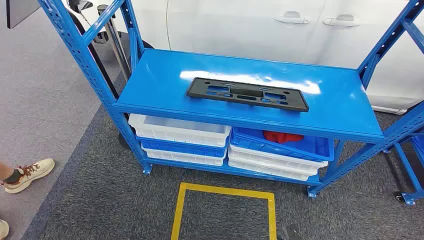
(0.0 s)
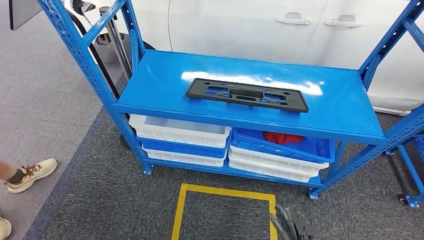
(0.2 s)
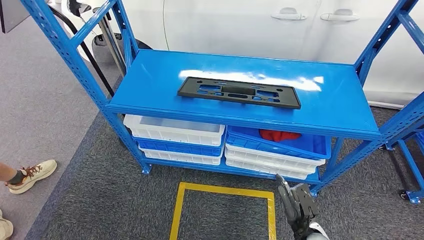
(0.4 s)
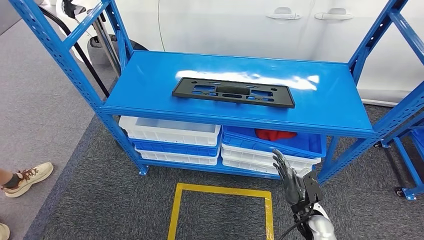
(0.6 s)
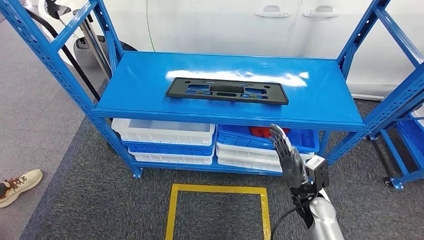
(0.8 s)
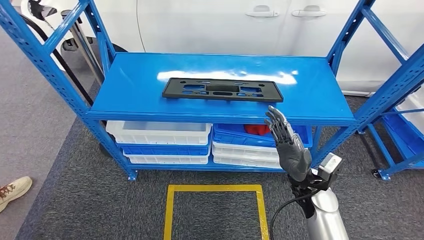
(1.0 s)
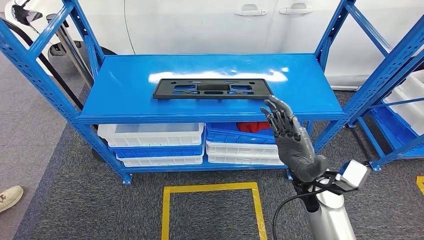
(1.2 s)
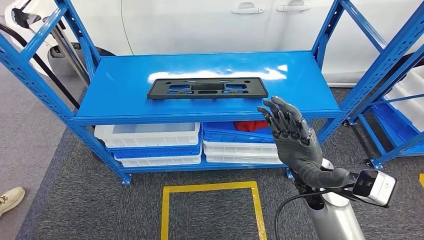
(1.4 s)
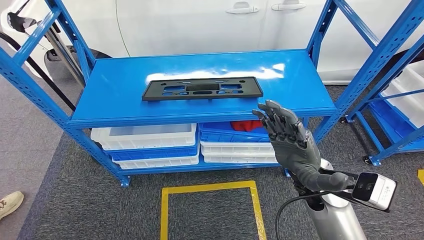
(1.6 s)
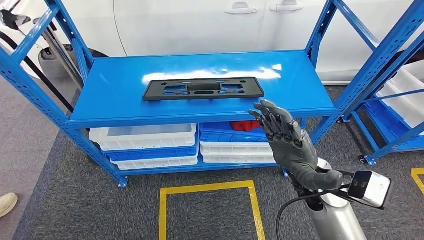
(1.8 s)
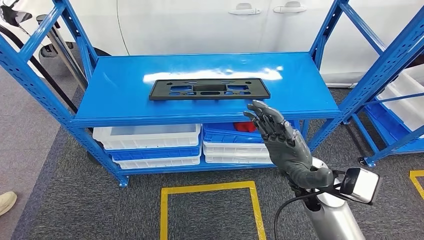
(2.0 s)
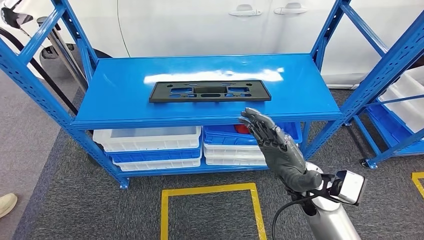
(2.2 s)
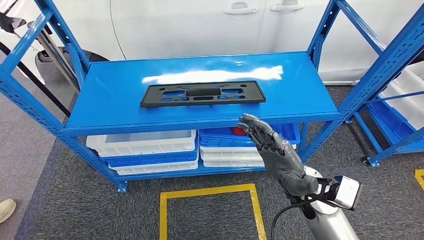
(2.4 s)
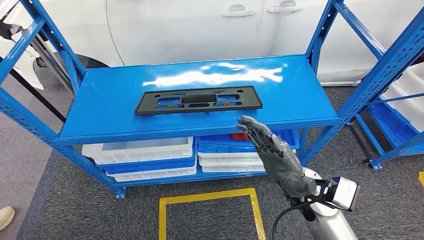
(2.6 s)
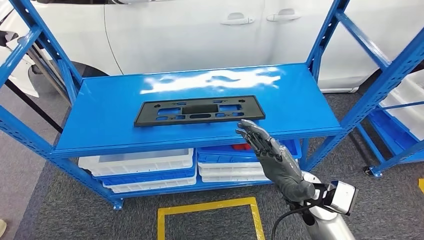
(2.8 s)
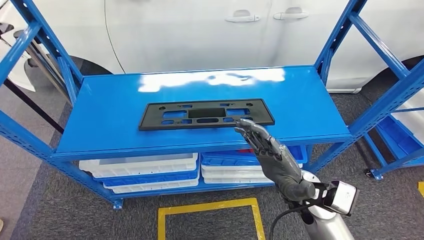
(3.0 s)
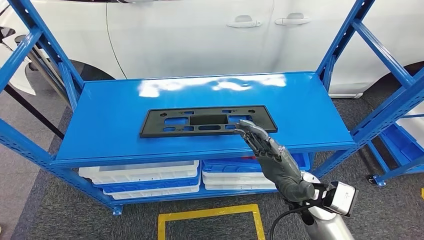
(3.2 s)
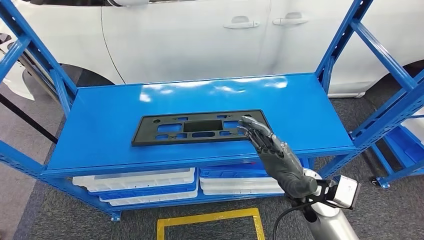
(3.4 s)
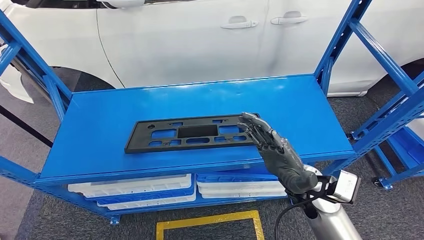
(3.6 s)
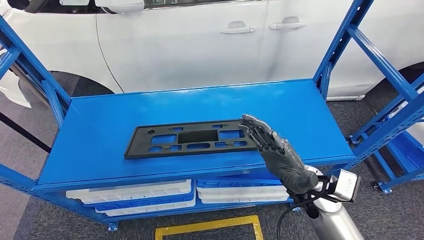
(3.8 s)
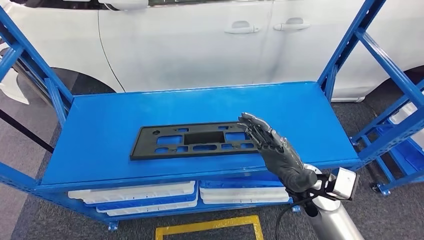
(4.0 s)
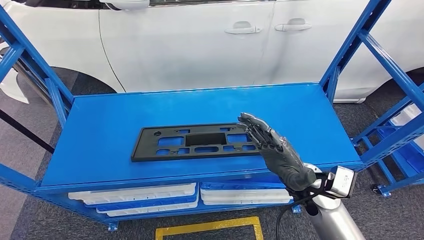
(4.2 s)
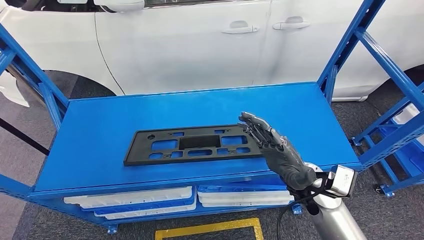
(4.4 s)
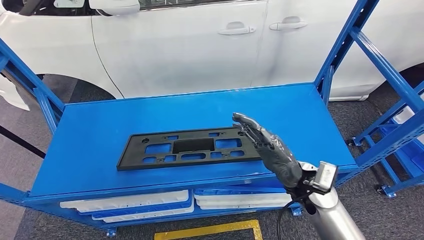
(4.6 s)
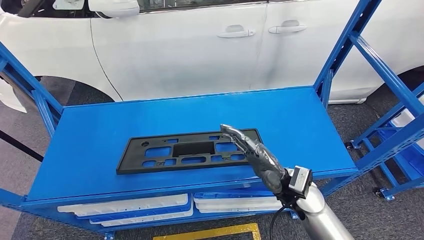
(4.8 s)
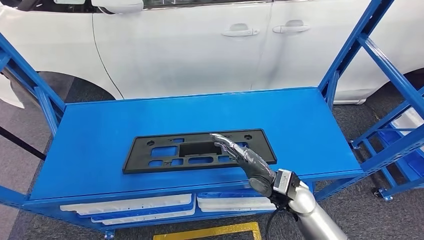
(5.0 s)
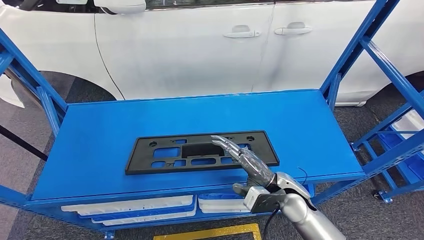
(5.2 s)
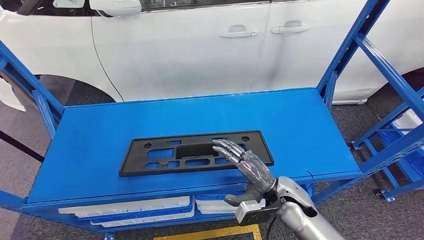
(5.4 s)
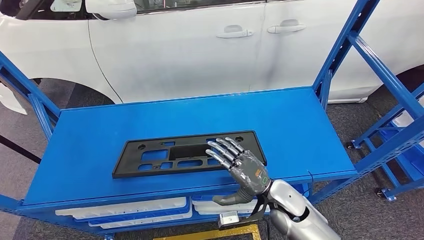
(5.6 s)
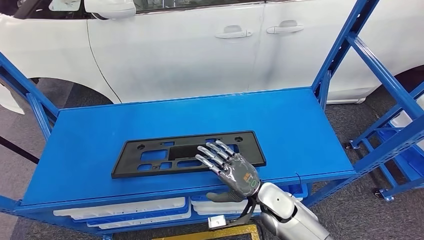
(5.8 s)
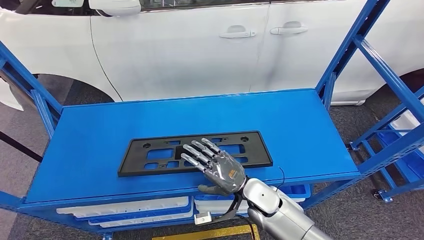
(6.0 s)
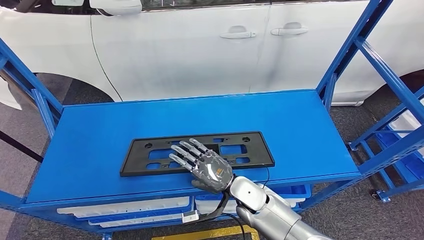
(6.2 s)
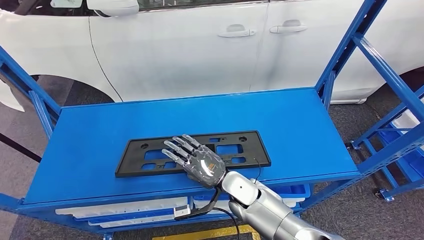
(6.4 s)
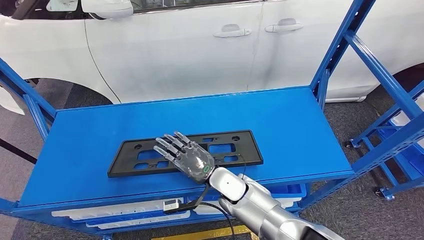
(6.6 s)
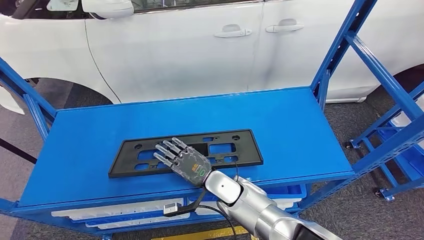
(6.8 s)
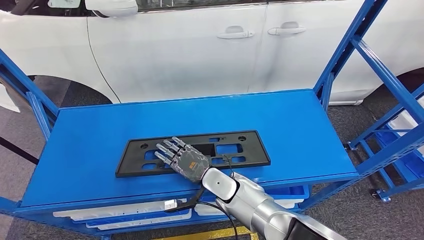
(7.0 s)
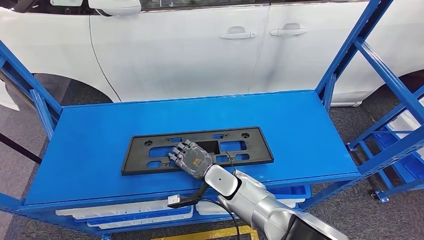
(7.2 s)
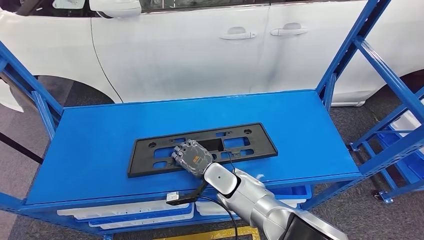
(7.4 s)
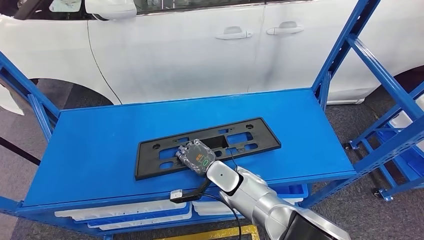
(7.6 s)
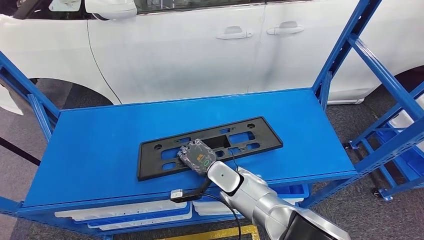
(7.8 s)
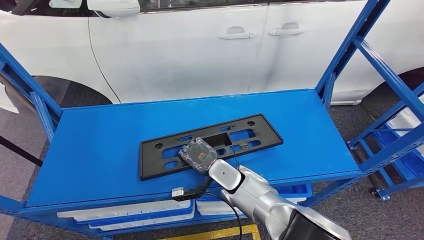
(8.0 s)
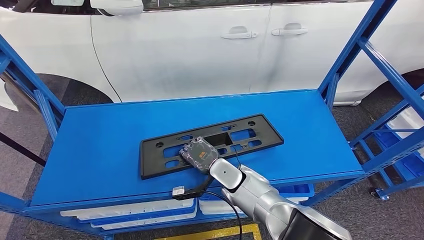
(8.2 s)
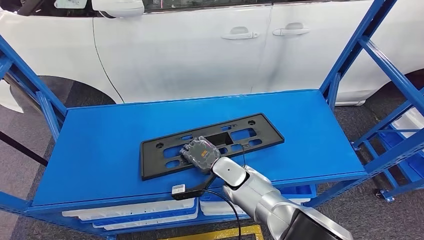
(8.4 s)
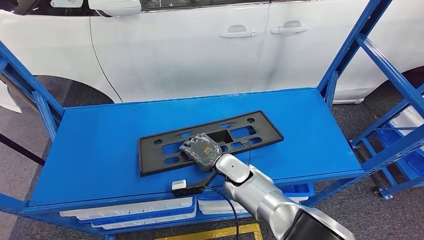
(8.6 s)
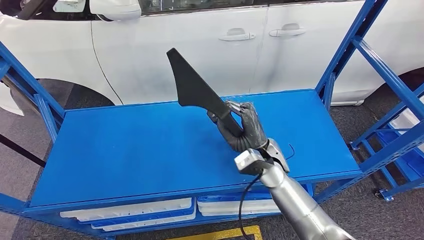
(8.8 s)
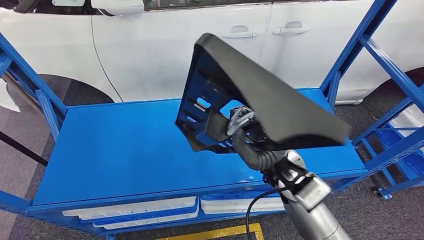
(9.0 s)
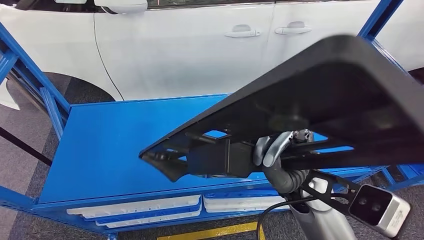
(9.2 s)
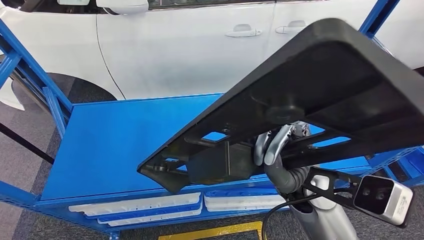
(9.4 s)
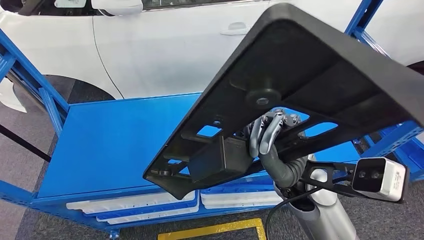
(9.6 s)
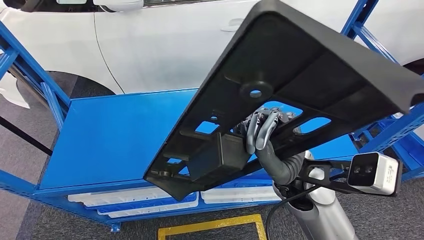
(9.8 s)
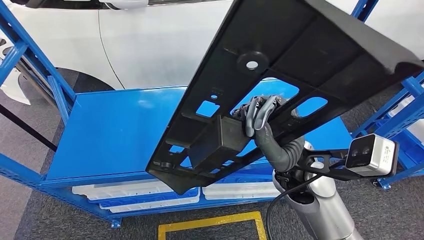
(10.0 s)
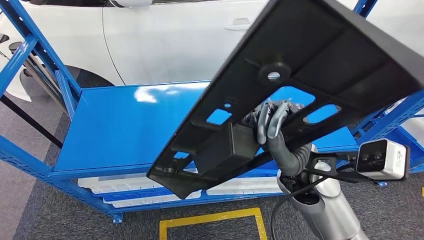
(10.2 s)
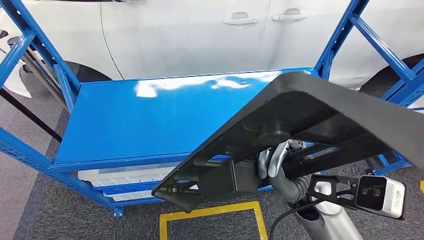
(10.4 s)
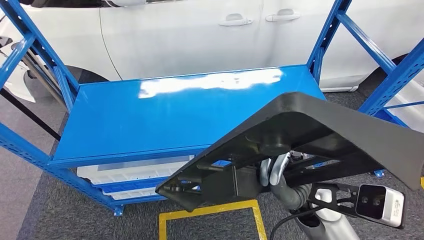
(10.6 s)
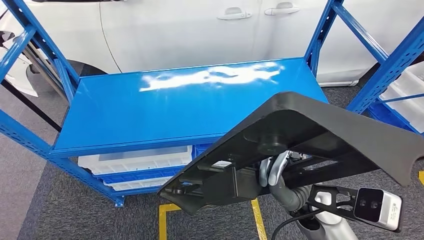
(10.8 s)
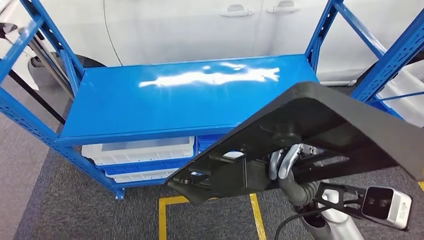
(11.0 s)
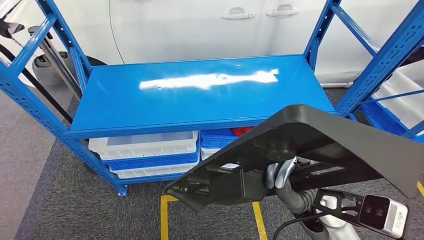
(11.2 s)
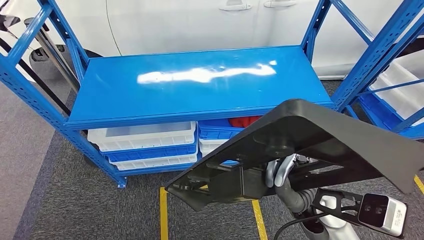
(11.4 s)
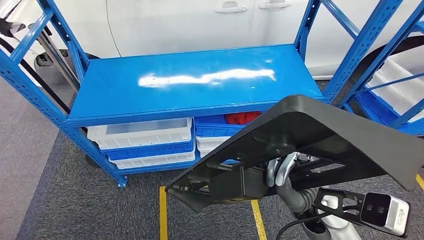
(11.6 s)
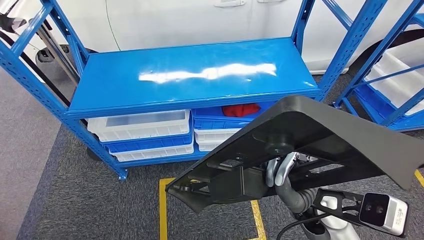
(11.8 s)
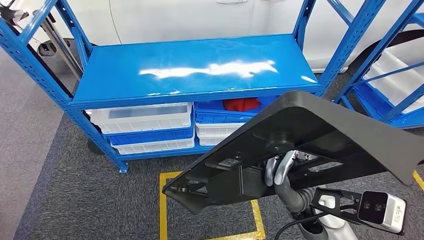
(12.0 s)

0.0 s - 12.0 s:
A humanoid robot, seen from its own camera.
Step, 0.0 s - 9.4 s: Pick up the large material from the shelf.

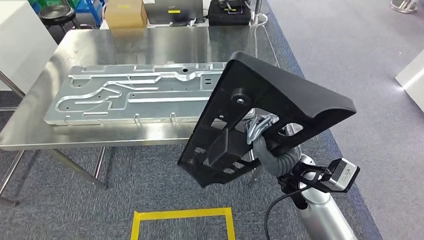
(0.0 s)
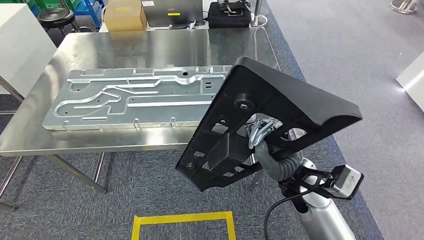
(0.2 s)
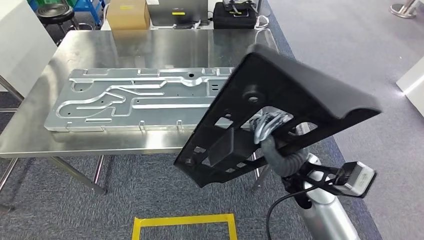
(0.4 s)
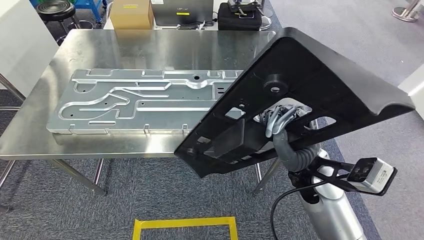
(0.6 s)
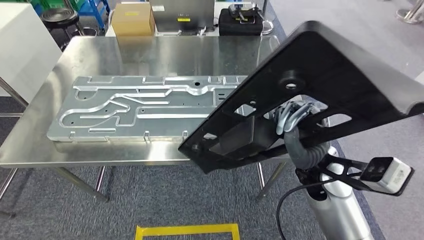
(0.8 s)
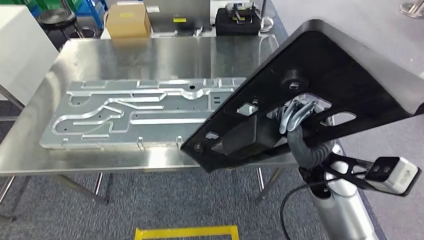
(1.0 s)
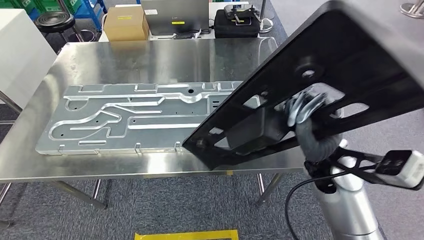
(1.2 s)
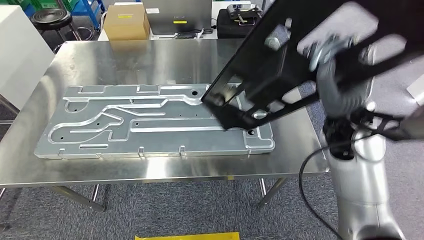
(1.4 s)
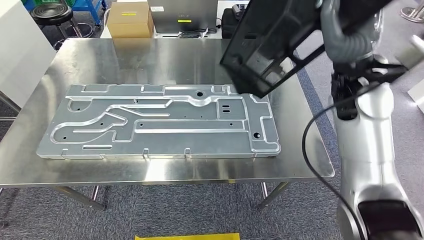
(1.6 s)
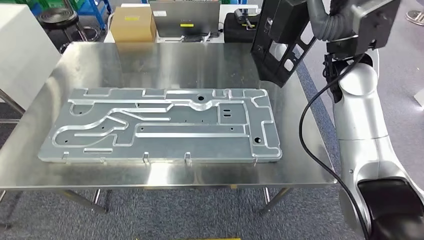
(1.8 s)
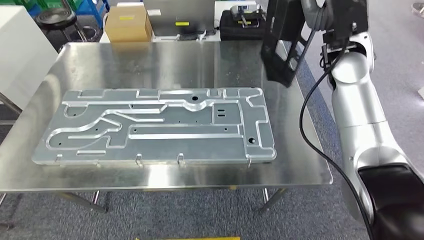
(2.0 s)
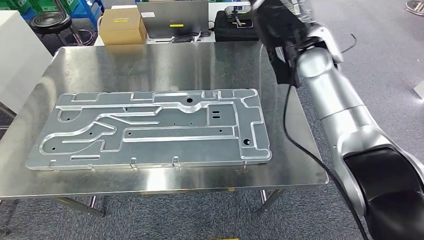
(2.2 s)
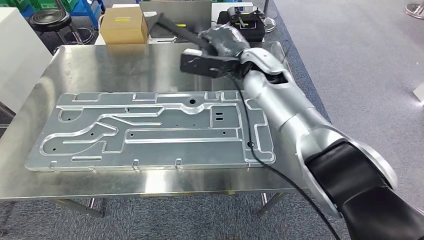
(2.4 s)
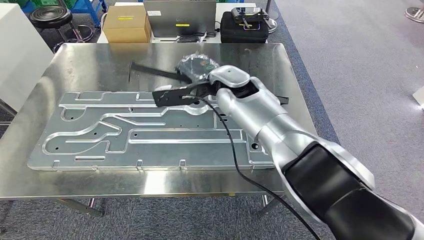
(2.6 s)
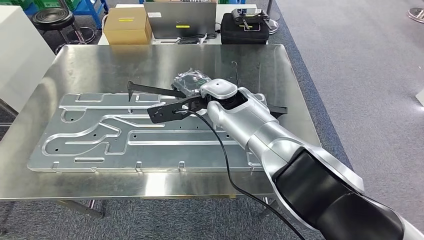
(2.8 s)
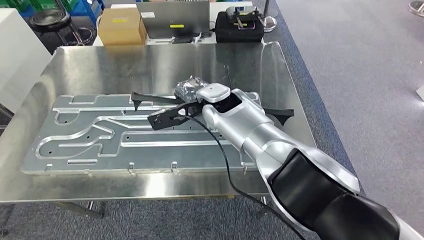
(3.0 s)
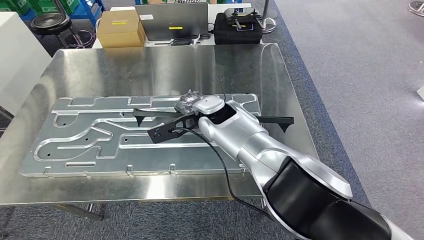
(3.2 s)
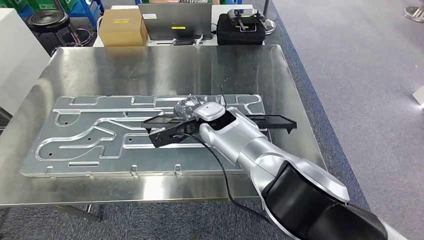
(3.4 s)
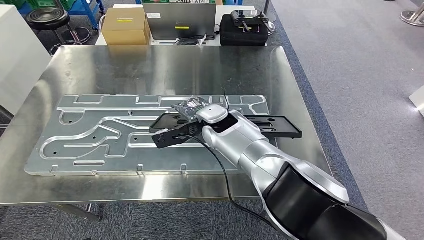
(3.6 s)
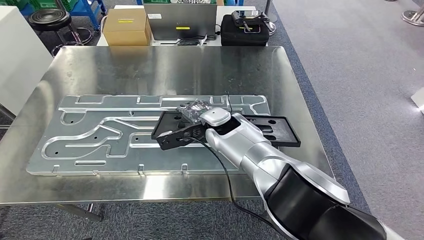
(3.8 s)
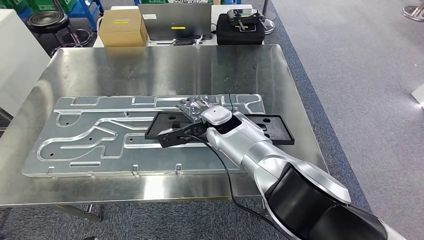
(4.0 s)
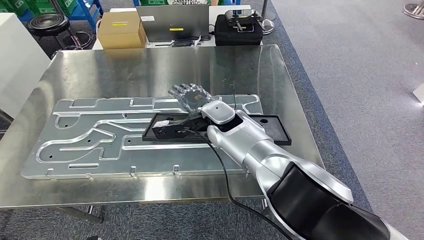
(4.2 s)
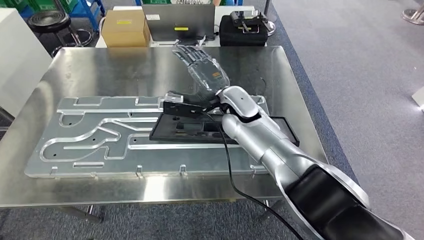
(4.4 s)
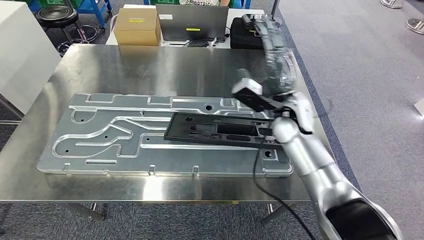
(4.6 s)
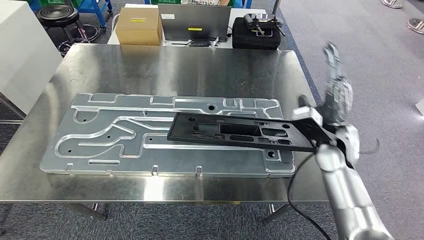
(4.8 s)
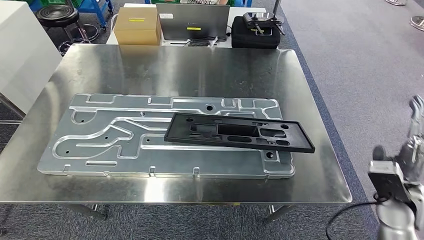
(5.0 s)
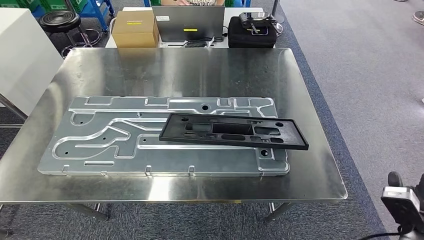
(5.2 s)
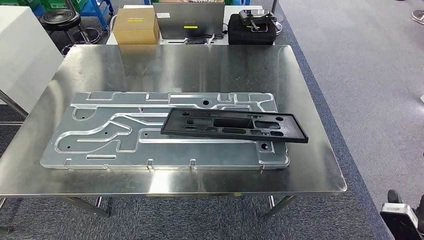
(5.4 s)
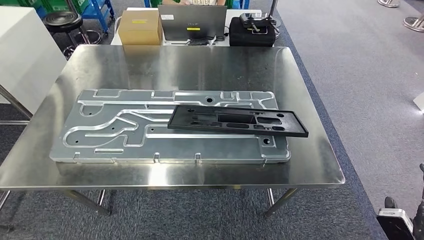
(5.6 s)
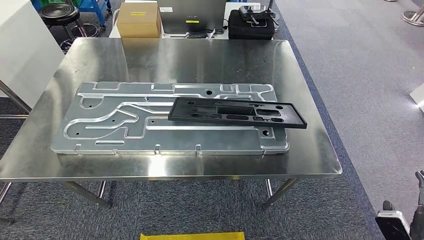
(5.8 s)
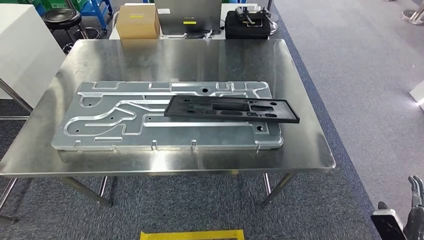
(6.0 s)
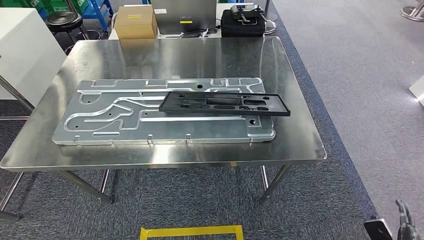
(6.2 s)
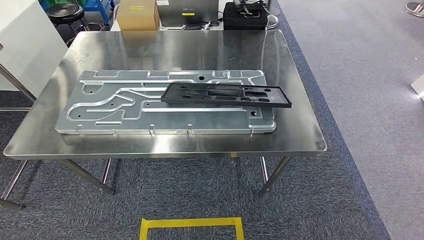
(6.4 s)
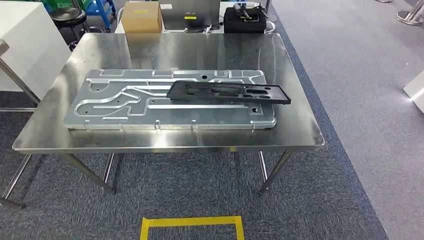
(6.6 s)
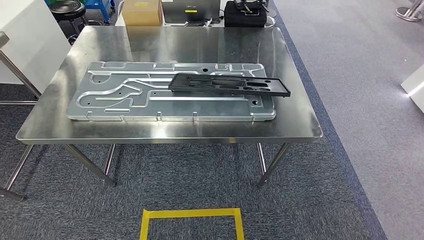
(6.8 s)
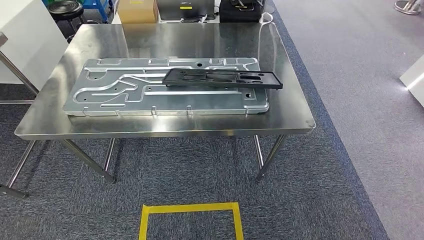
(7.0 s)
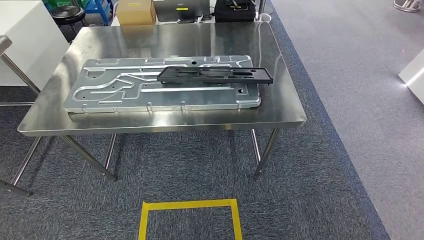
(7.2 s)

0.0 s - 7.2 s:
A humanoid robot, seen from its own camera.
Step, 1.0 s - 5.4 s: Insert the large material into the corresponding hole on the workbench.
